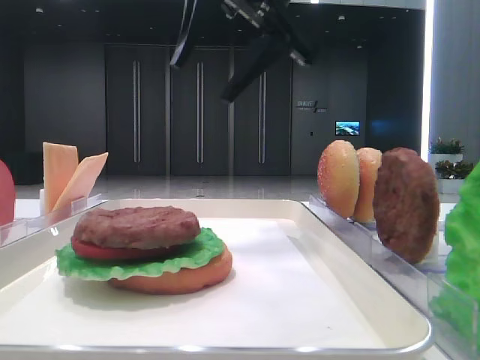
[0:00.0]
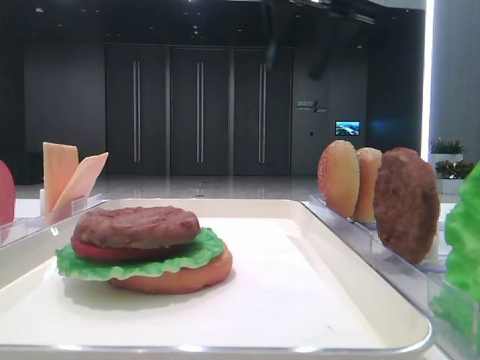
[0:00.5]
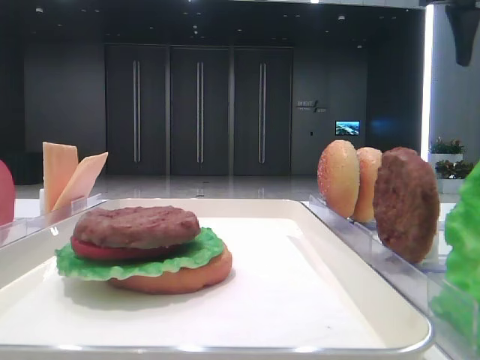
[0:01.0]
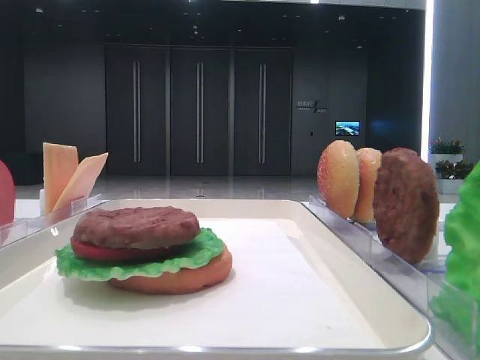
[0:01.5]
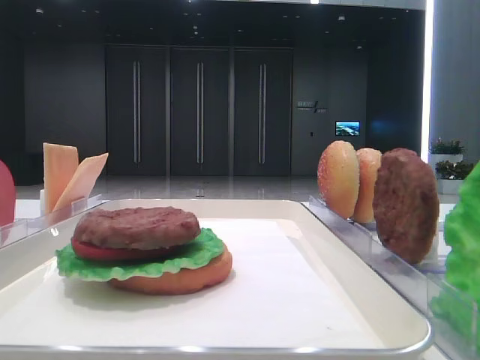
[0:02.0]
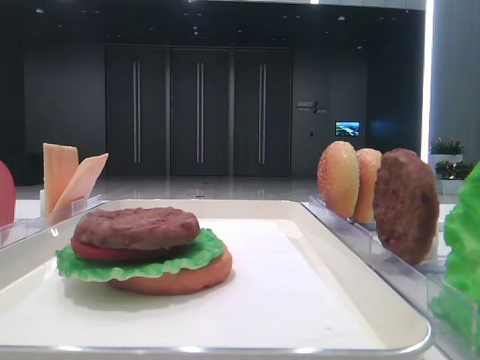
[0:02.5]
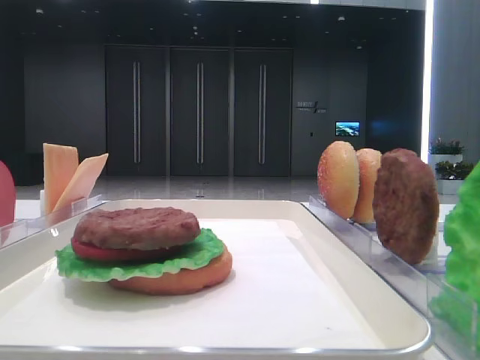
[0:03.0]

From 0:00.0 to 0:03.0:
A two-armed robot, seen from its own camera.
From 0:00.0 to 0:01.5: The right gripper shifts roughly 30 cm to the right and backward.

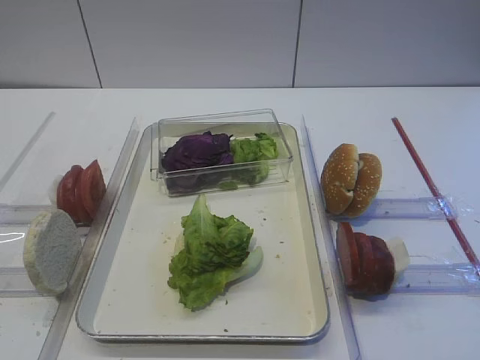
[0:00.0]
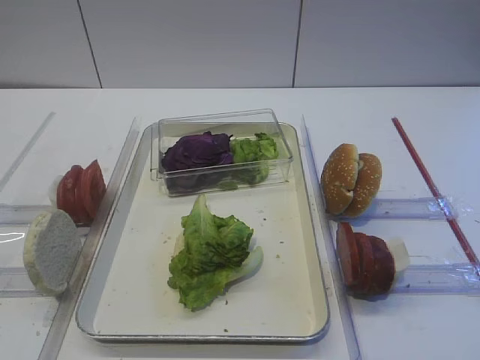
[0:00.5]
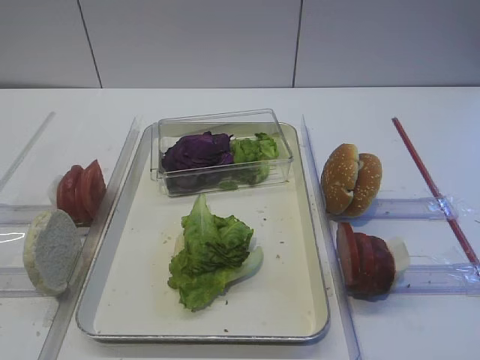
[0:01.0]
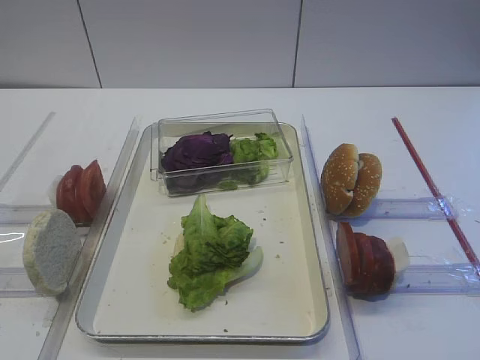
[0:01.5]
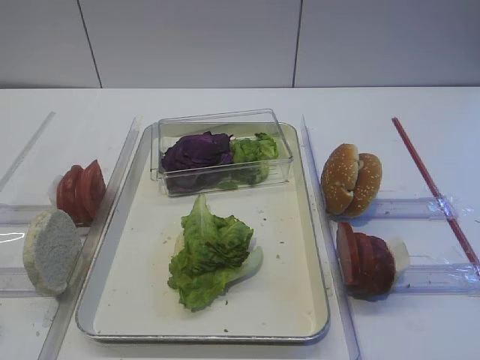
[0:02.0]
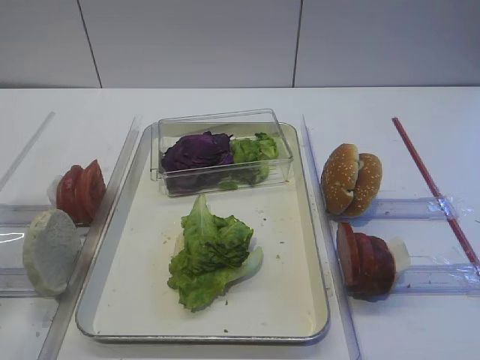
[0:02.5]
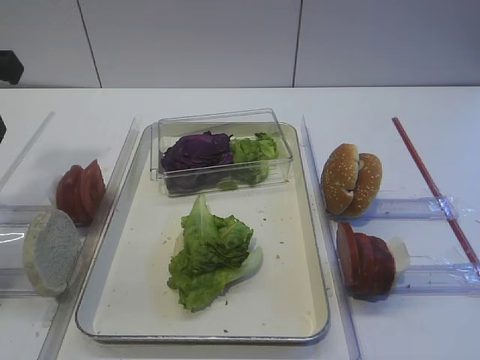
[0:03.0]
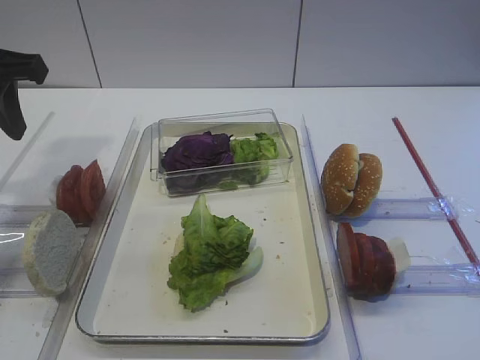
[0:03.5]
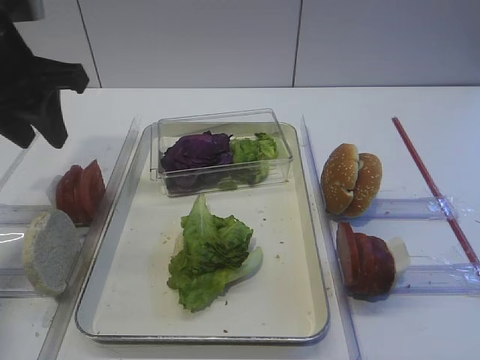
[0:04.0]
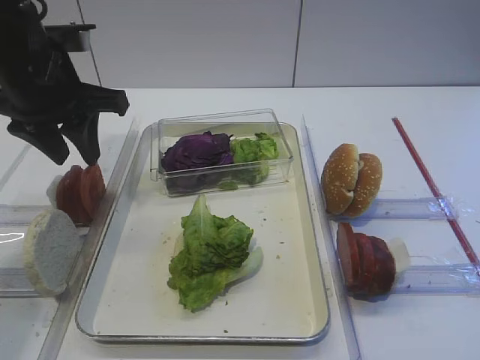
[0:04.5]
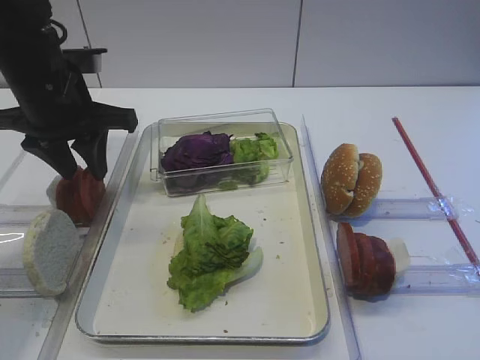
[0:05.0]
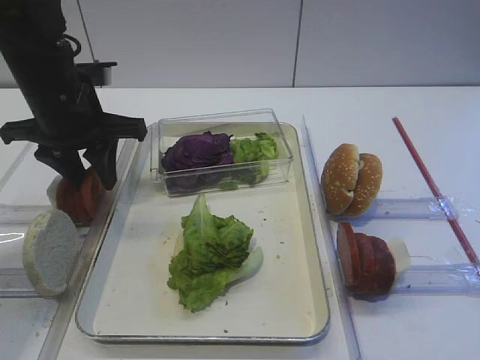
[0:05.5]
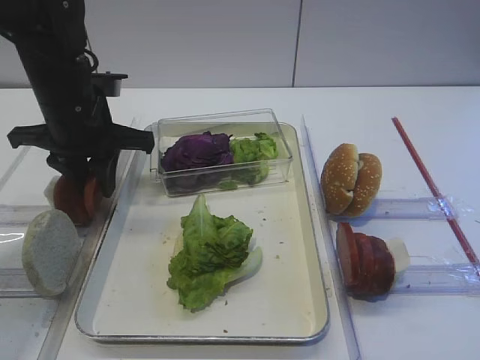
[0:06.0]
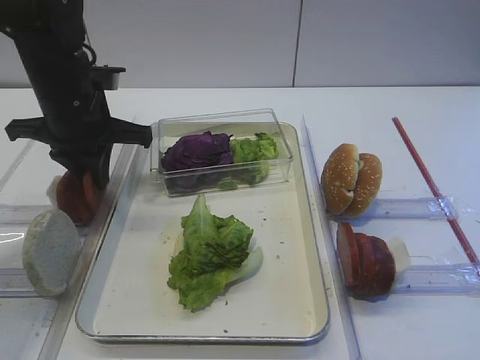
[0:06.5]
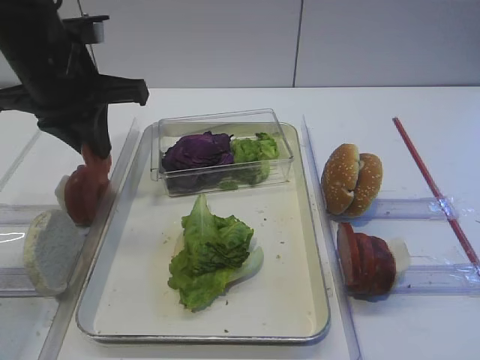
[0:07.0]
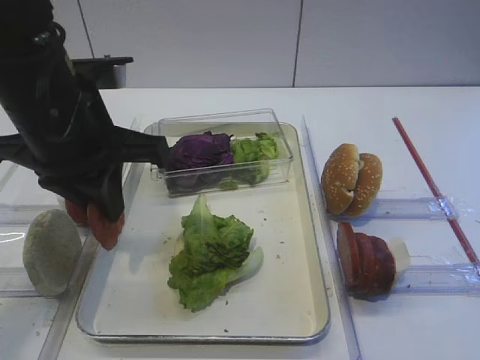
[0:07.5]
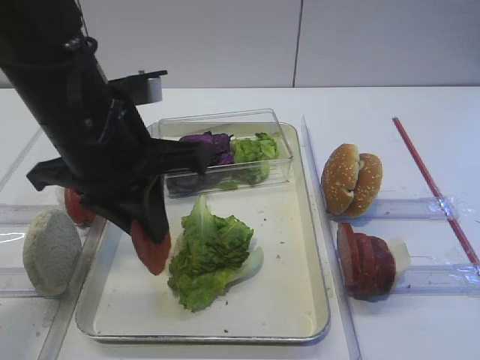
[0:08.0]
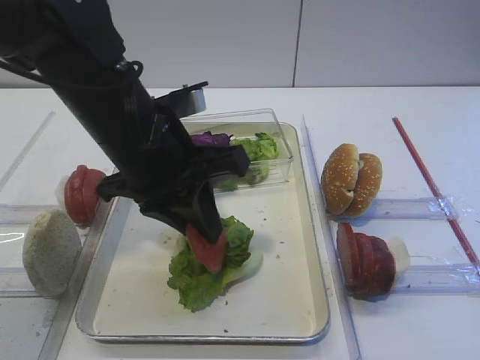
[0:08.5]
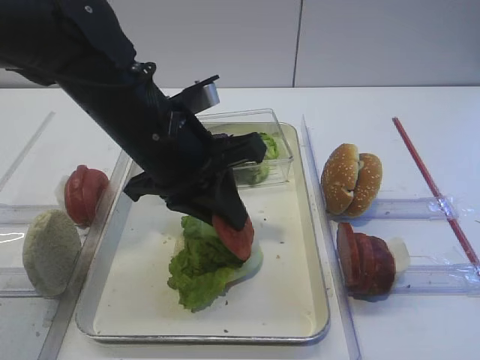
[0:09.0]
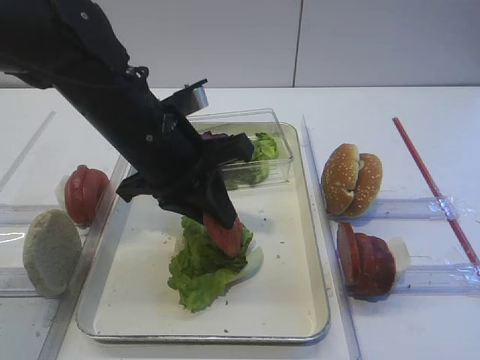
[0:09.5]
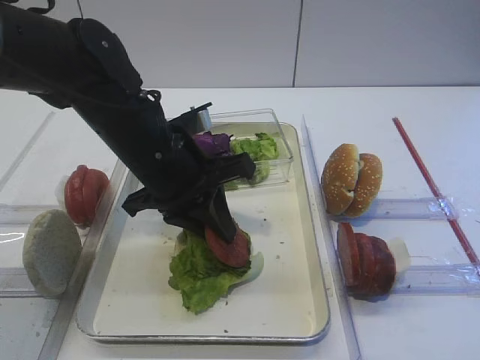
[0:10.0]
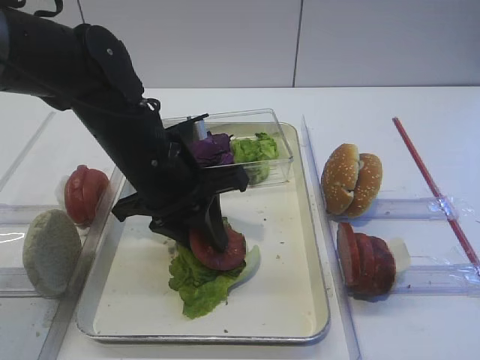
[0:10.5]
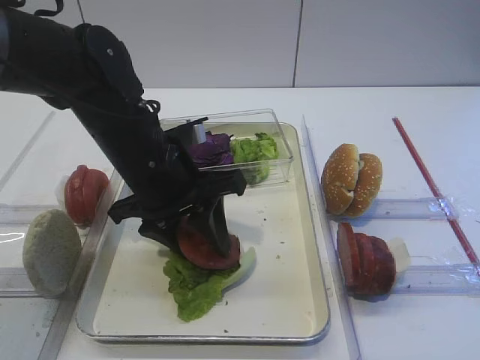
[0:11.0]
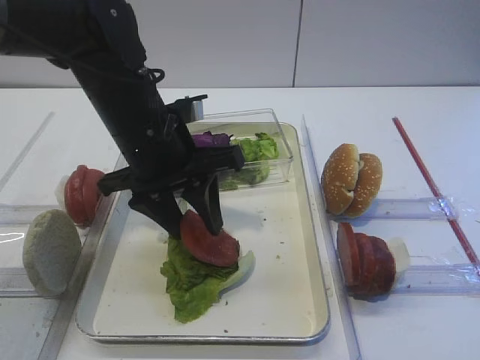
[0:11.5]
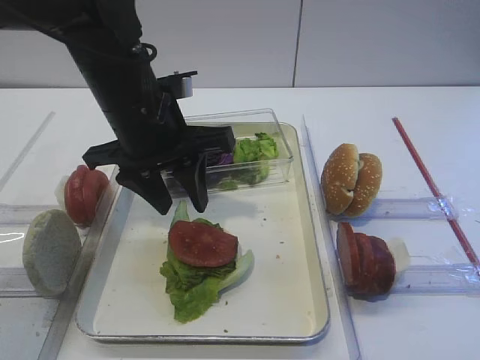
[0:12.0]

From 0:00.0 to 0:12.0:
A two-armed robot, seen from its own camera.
Step, from 0:00.0 to 0:07.0: Pick up the tomato slice with the left gripper.
From 0:02.0 to 0:04.0: The left gripper is displaced forward by approximately 25 cm.
From 0:04.0 to 0:06.0: The left gripper heads downward and forward, covering about 10 cm.
From 0:06.0 to 0:08.0: The left gripper moves backward and to the right, some 15 cm, and closes.
From 0:08.0 to 0:10.0: The left gripper moves downward, some 5 cm.
From 0:10.0 to 0:12.0: The left gripper opens.

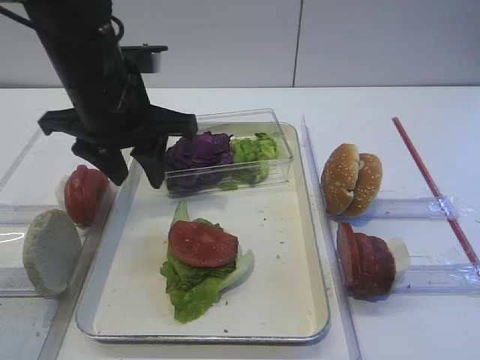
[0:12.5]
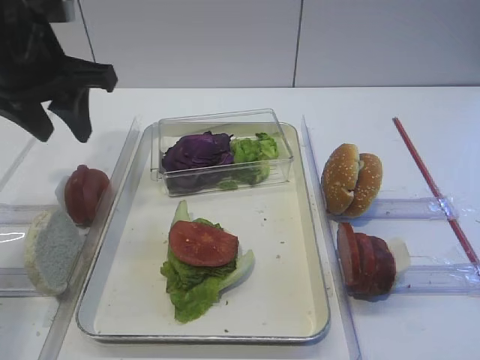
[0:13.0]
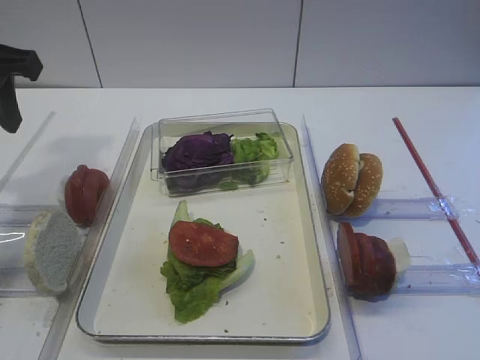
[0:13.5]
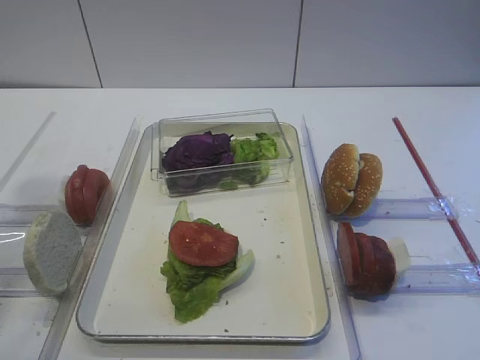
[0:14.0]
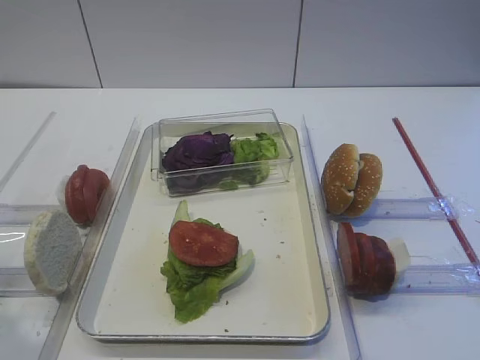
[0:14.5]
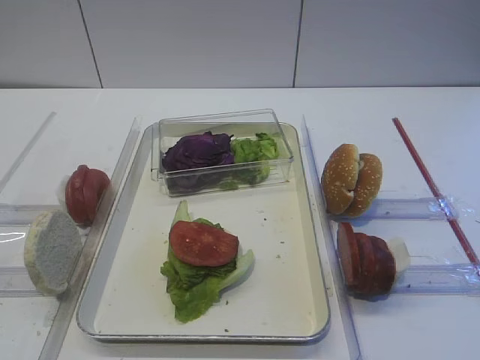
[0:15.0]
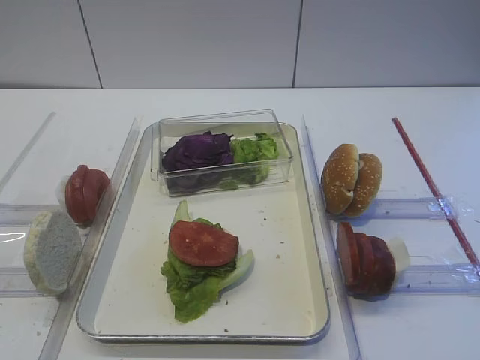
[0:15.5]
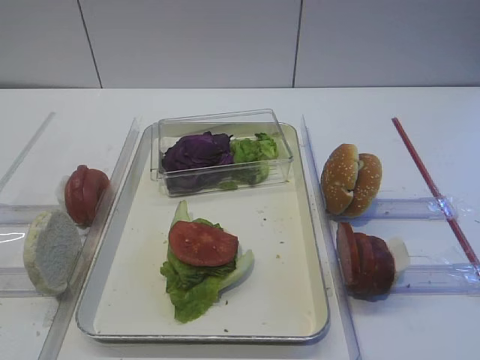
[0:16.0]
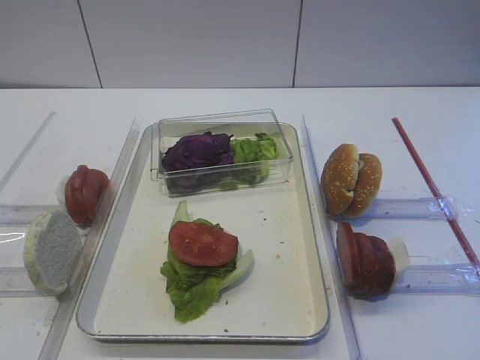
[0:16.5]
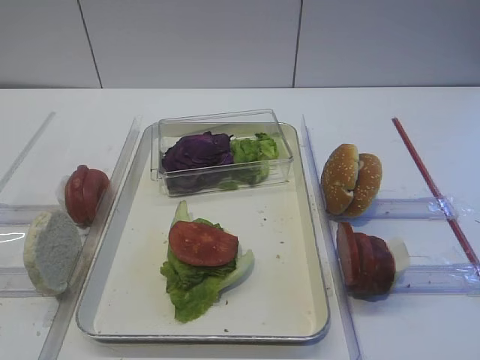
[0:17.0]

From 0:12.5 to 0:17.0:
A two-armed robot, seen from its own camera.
From 0:12.5 to 0:14.5: The left gripper moves backward and to the left, roughly 30 cm.
From 0:14.5 to 0:17.0: The left gripper travels backward and downward by approximately 10 cm.

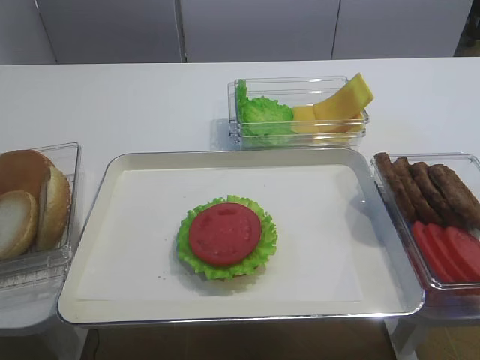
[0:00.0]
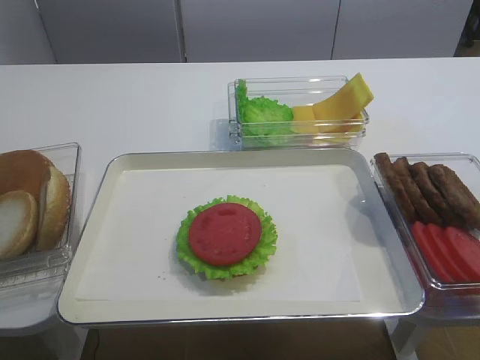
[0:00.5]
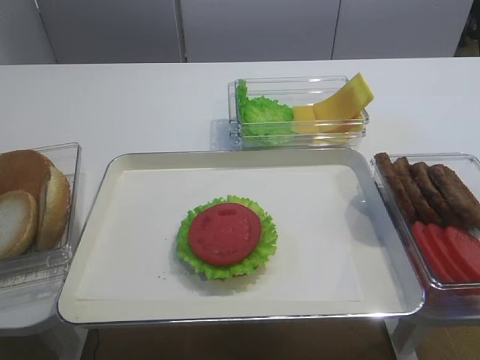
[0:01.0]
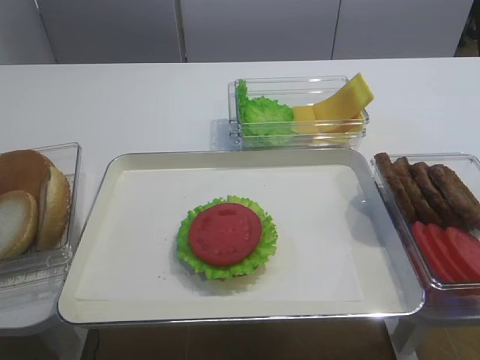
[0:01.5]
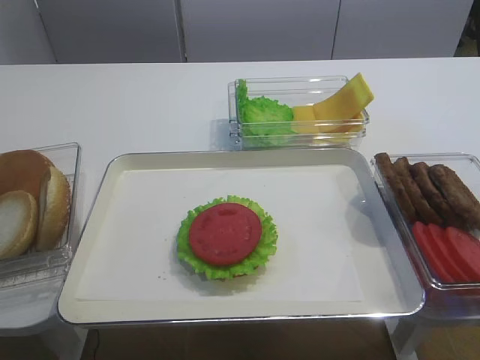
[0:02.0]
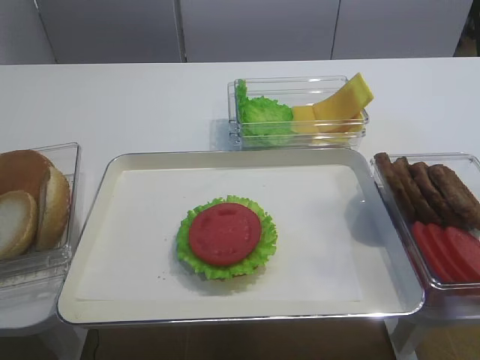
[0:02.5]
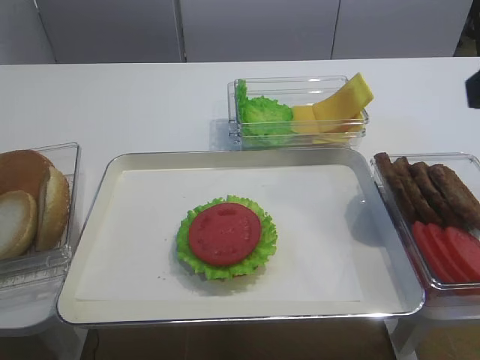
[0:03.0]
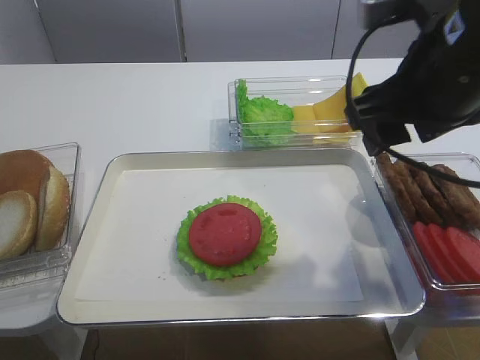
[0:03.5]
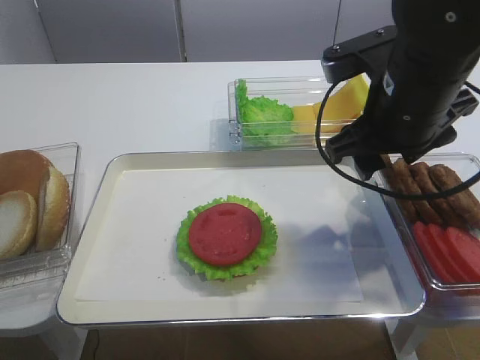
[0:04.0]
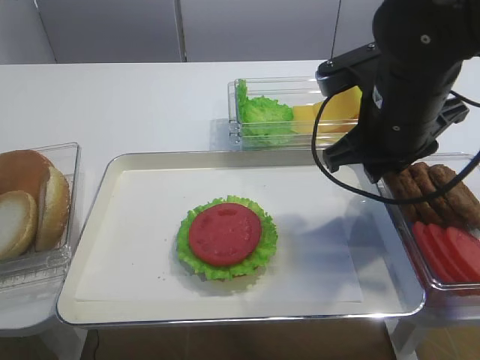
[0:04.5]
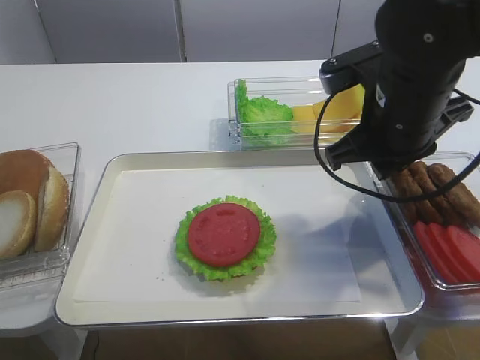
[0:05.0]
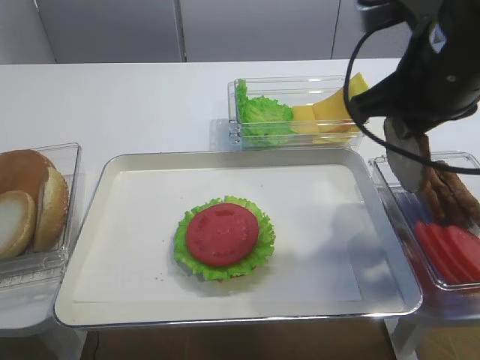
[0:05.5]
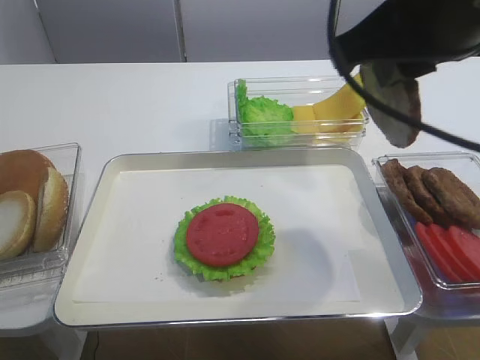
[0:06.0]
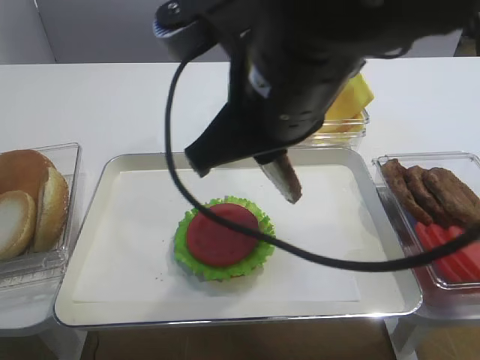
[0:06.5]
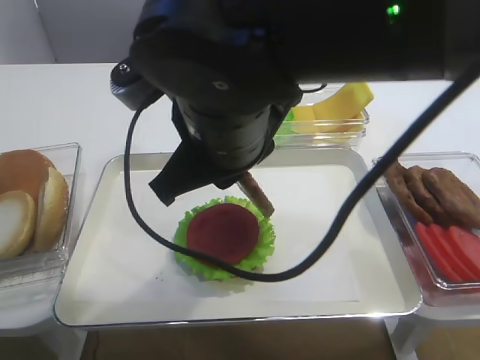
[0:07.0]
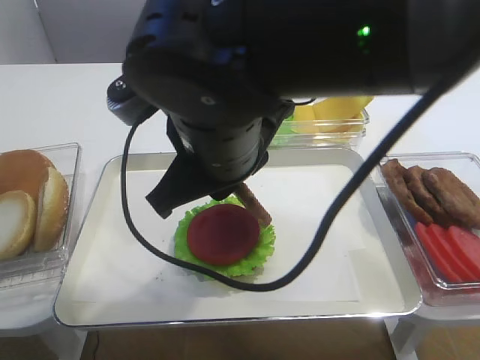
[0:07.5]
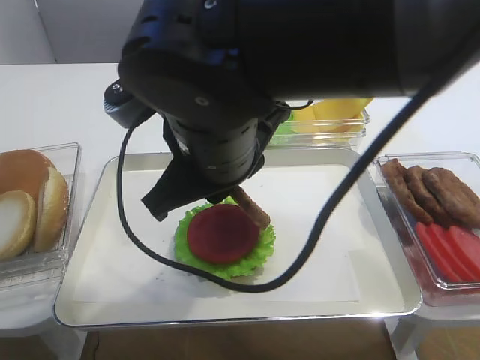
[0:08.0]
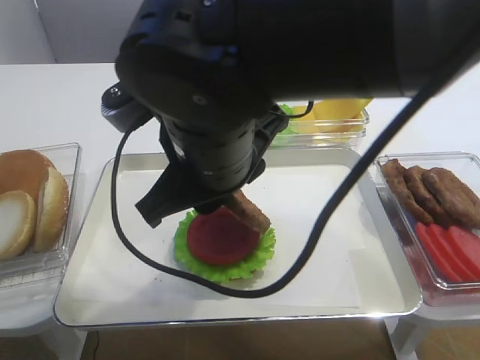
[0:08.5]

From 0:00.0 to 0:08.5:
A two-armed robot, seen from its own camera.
Step, from 0:00.0 to 0:05.5: Pick up the cutlet with the right gripper.
From 0:02.0 to 0:04.0: The right gripper moves forward and to the left, some 30 cm.
From 0:04.0 to 0:06.5: The right gripper travels to the left, backward and upward by about 15 cm, and closes up.
From 0:06.5 to 0:08.5: The right gripper is displaced to the left and downward by some 5 cm.
